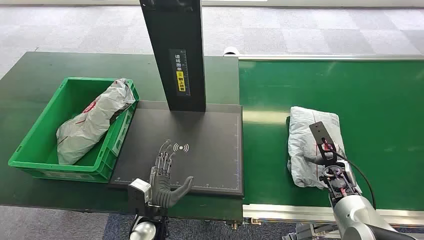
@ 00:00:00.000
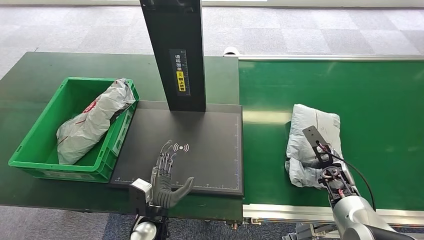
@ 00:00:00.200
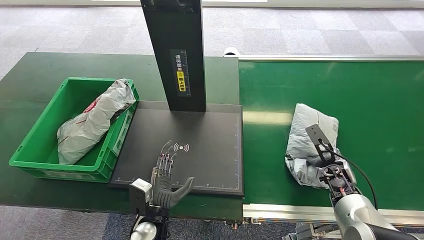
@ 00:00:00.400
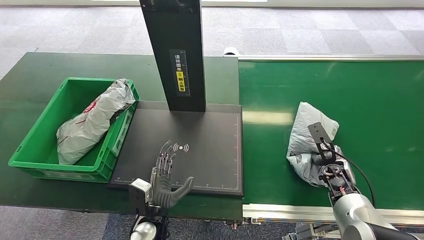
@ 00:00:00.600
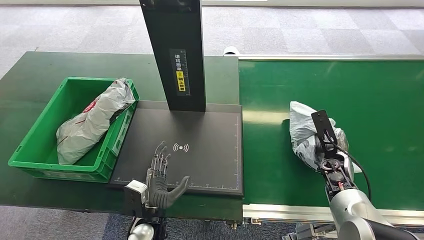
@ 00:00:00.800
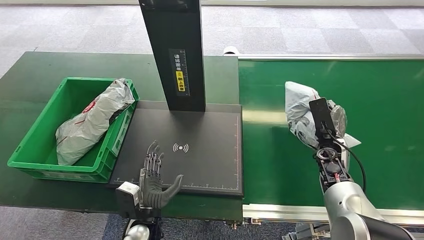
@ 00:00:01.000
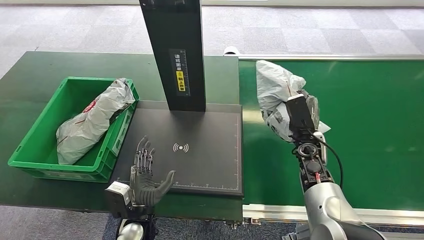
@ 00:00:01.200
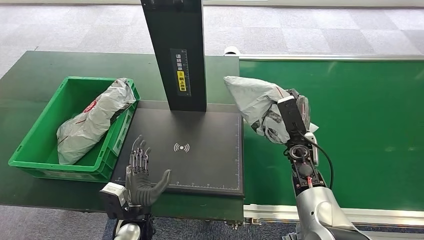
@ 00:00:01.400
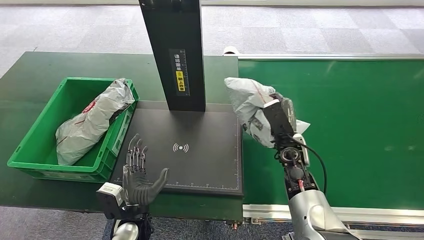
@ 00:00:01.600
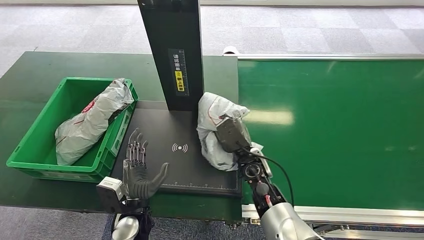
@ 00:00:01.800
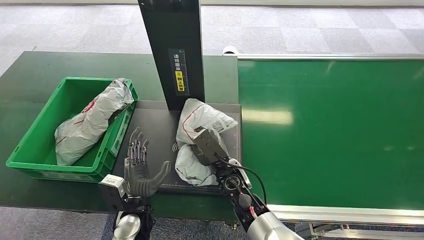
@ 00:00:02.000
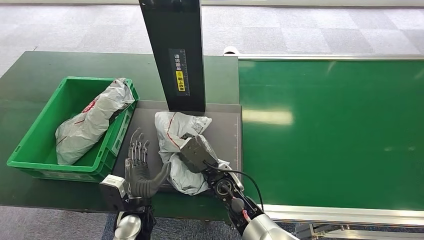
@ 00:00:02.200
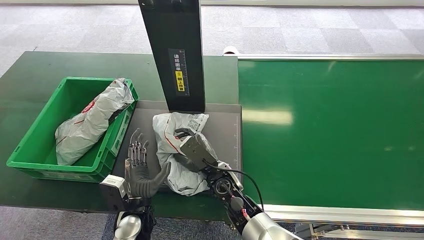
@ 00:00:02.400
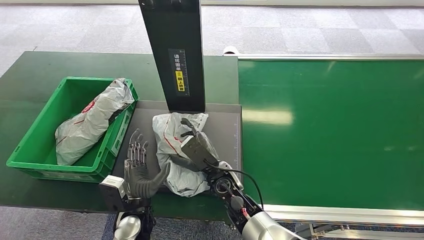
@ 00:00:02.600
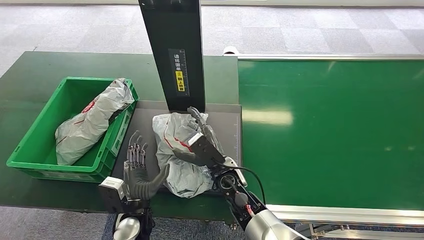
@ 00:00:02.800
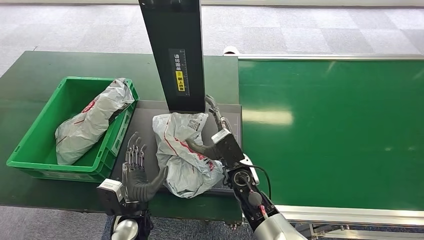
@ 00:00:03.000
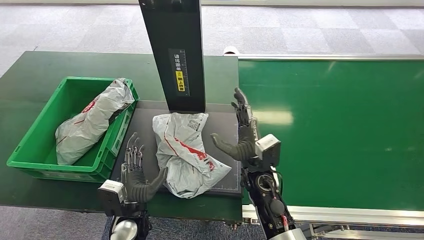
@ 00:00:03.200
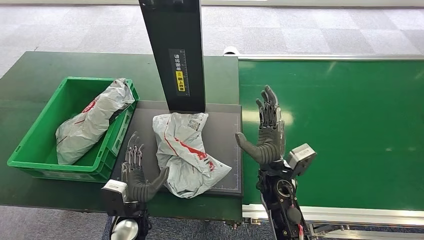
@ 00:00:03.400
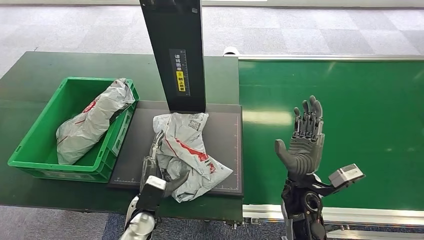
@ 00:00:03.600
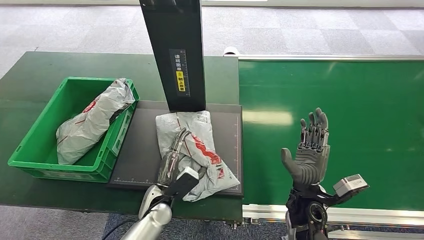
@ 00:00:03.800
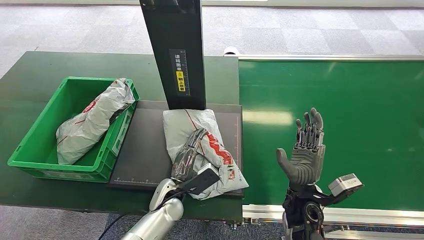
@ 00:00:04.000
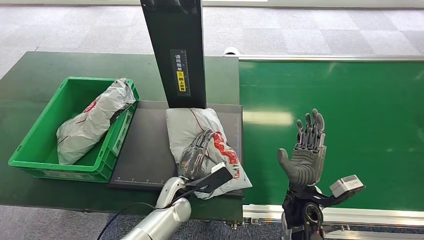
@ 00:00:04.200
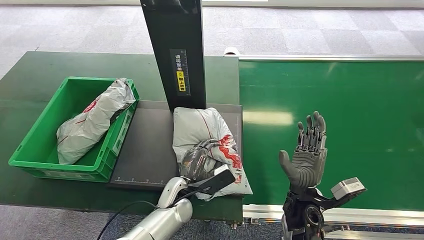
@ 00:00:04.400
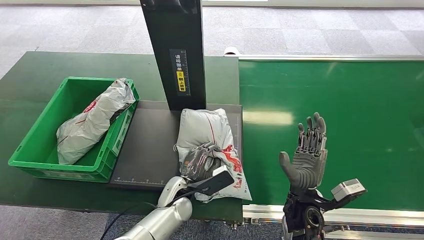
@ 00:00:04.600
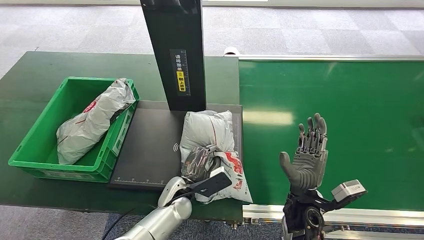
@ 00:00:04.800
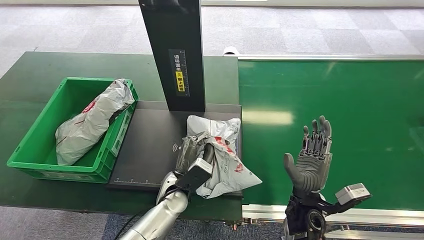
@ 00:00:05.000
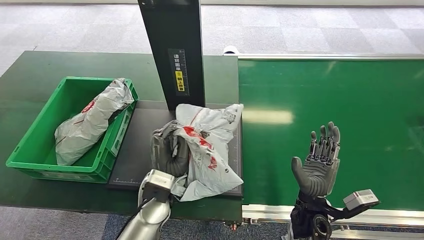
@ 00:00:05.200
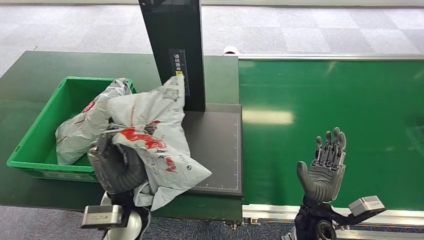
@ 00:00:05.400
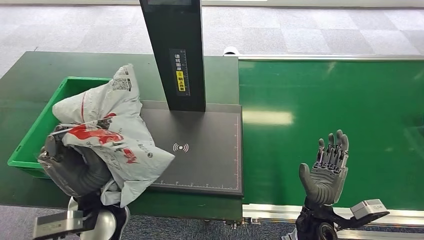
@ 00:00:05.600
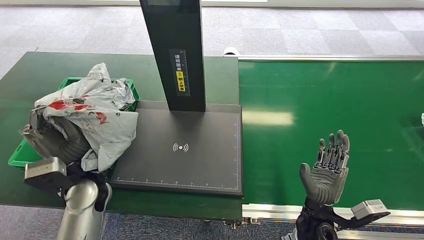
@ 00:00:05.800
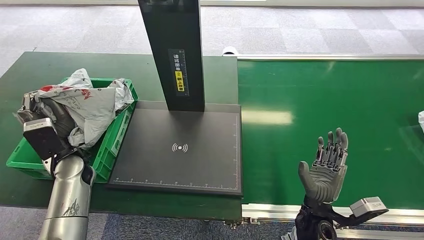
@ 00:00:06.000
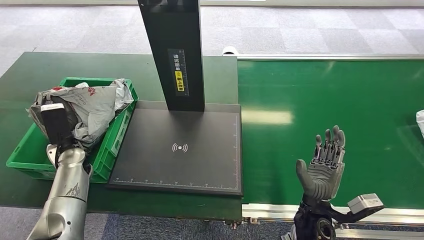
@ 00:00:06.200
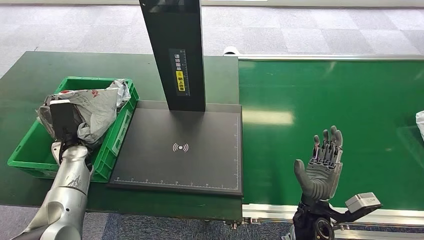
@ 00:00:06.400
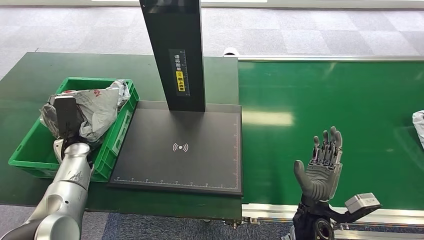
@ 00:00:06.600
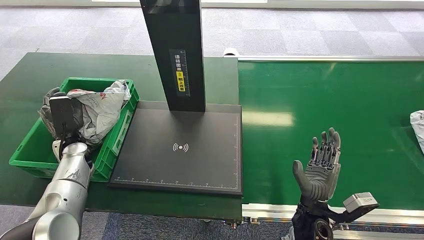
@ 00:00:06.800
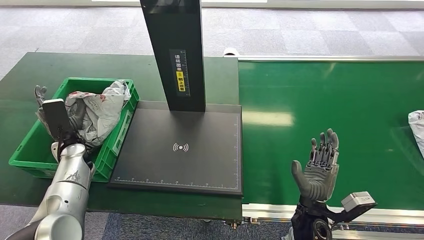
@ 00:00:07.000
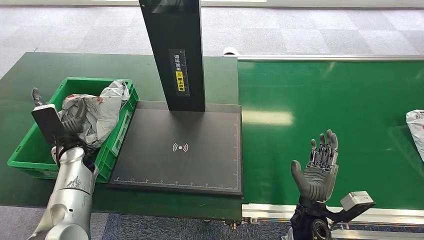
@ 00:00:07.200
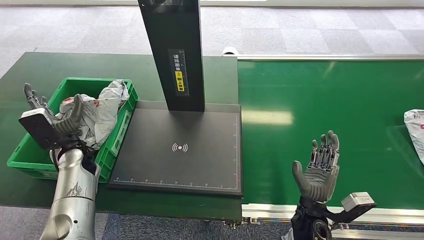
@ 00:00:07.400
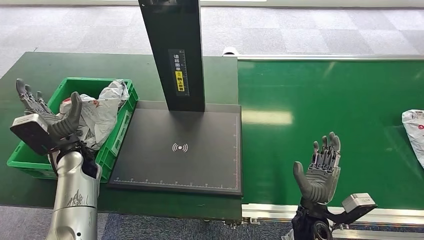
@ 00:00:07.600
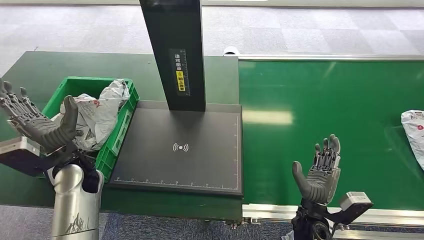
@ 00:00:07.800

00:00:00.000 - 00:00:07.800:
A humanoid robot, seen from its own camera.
Step, 00:00:00.000 - 00:00:01.000: Pick up the package from the conveyor belt.
Step, 00:00:01.200 - 00:00:04.200: Place the package onto the inbound machine.
Step, 00:00:04.600 - 00:00:05.800: Pick up the package from the inbound machine.
Step, 00:00:06.000 - 00:00:07.600: Place the package into the parcel locker.
00:00:01.600 - 00:00:03.200: The right hand travels to the left and backward by some 15 cm.
00:00:03.200 - 00:00:04.600: The left hand shifts approximately 10 cm to the right and forward, while the right hand moves to the right and backward, about 10 cm.
00:00:06.200 - 00:00:07.800: The left hand heads to the right and backward, covering approximately 10 cm.
